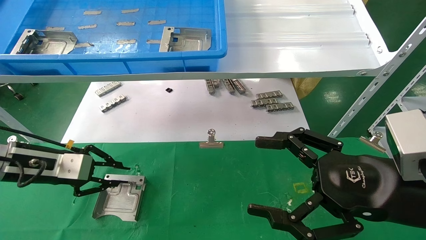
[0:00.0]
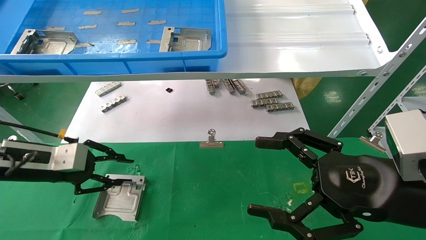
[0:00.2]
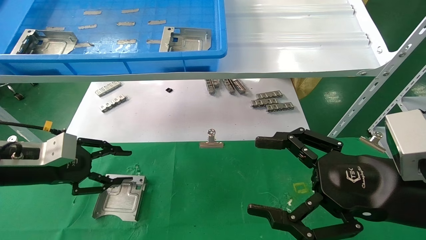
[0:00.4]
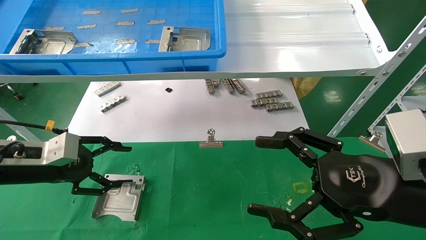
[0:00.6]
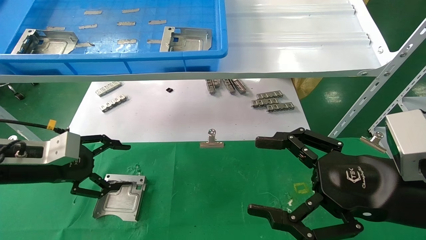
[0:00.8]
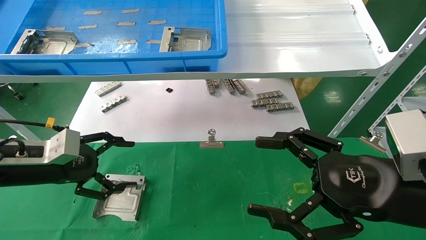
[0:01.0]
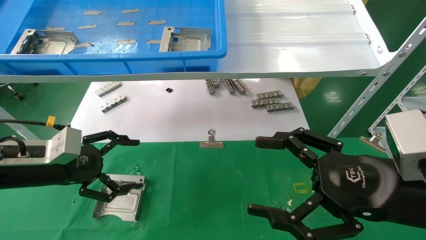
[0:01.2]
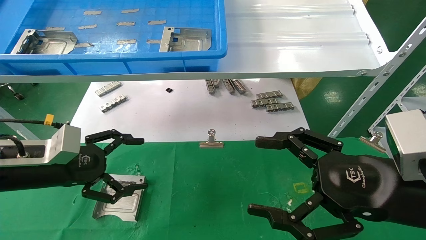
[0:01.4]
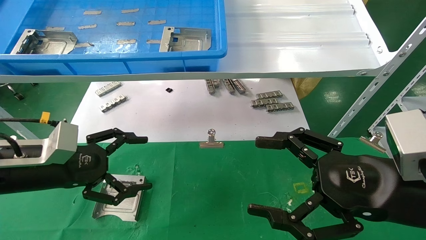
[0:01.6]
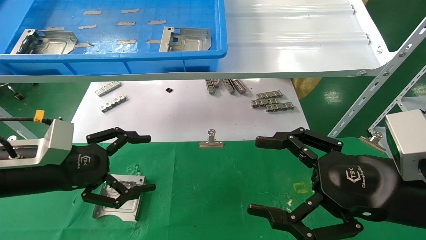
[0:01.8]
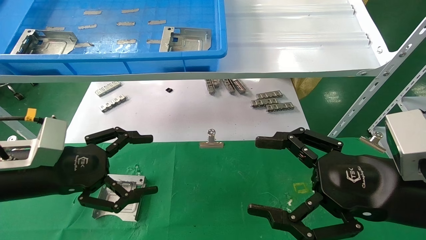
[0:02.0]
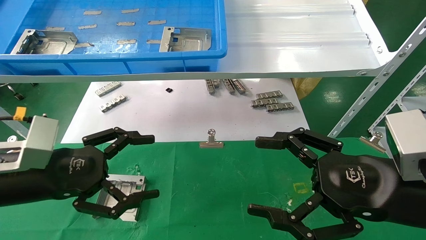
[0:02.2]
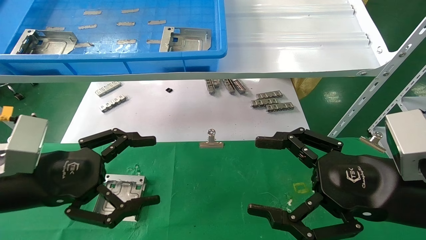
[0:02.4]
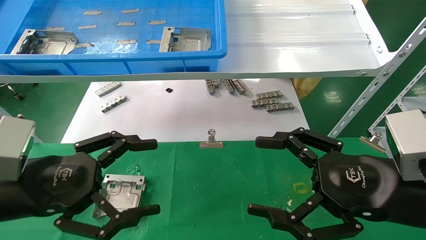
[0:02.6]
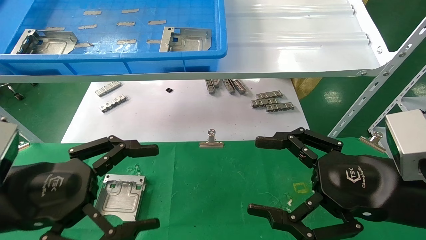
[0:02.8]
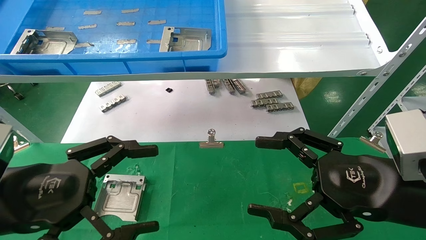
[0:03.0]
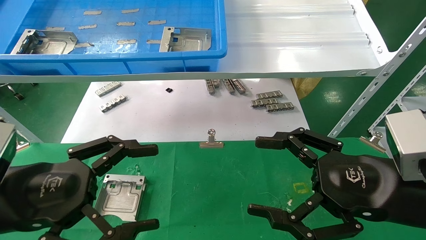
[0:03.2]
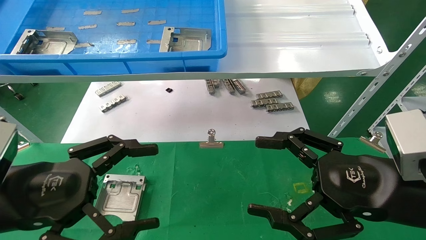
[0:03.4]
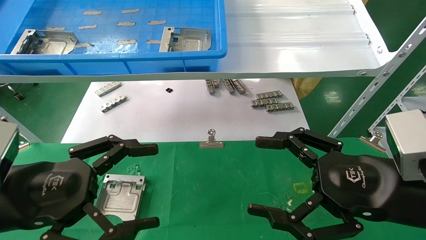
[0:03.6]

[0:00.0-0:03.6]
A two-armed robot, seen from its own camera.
Task of the whole recording: use the mechanical arm to pick up the parts and place them on the table.
0:00.0 to 0:01.8: The left gripper is displaced backward and to the right by roughly 10 cm, and opens up.
0:01.8 to 0:03.6: The left gripper heads backward, covering approximately 10 cm.
